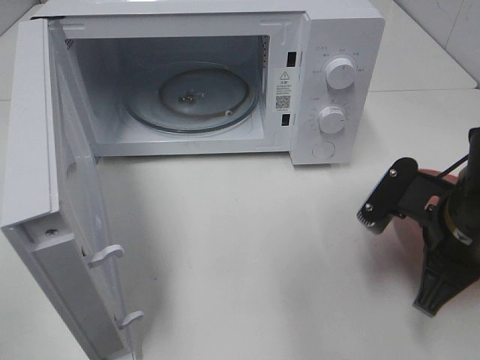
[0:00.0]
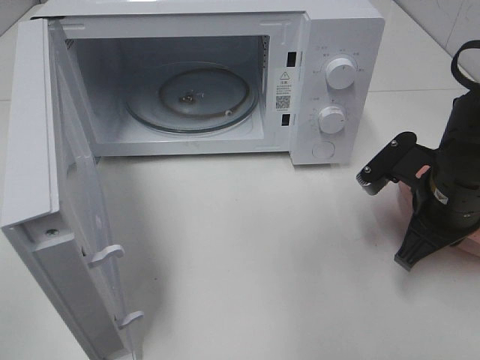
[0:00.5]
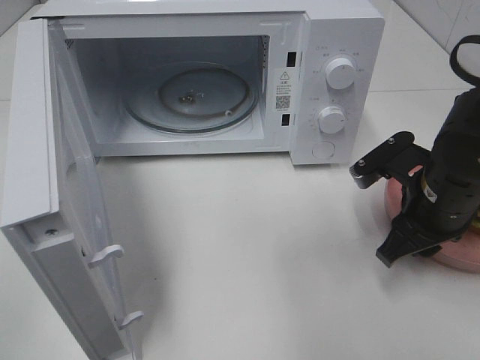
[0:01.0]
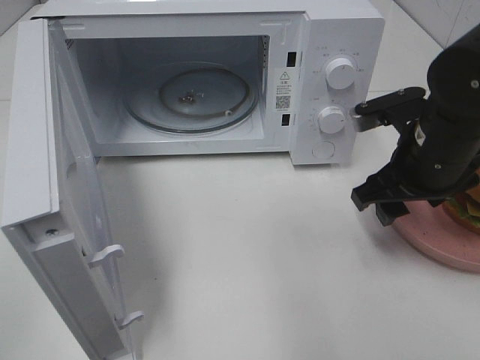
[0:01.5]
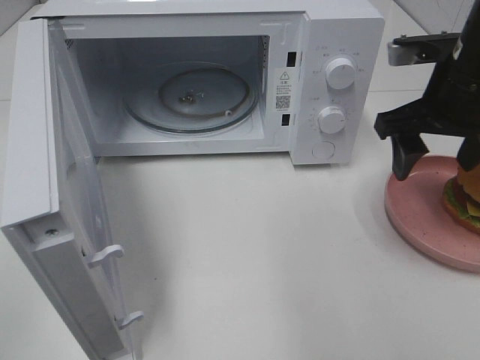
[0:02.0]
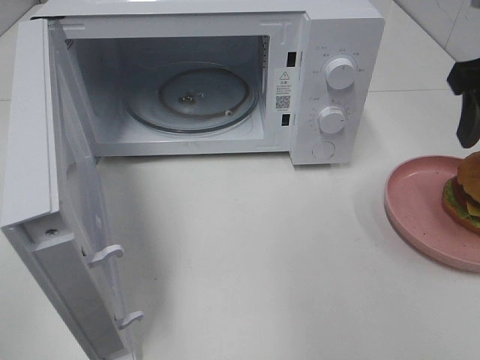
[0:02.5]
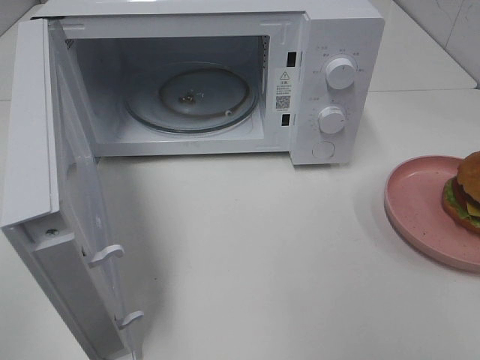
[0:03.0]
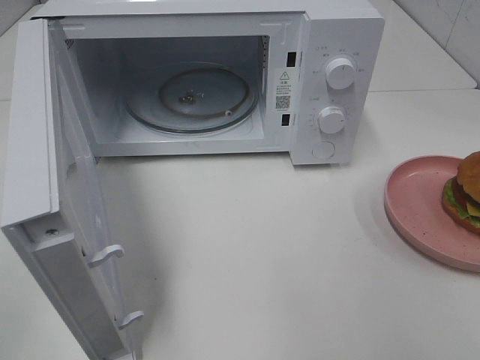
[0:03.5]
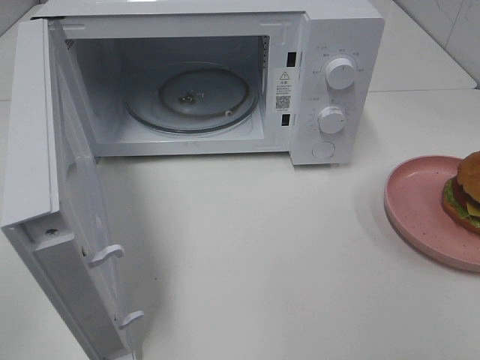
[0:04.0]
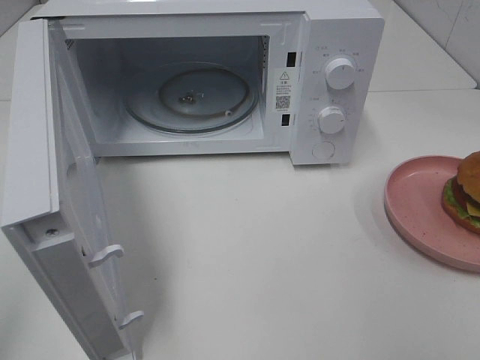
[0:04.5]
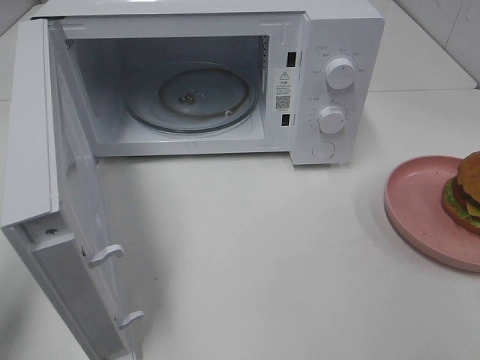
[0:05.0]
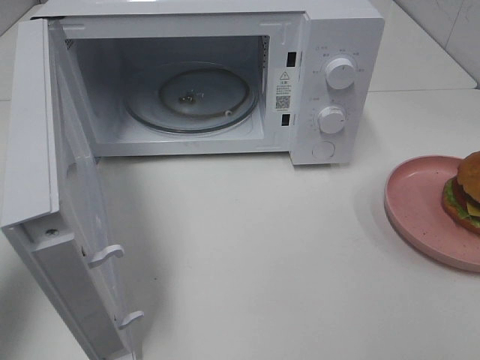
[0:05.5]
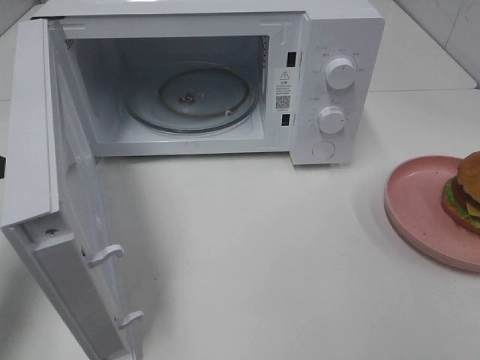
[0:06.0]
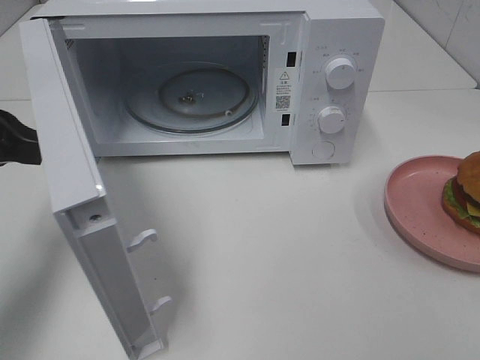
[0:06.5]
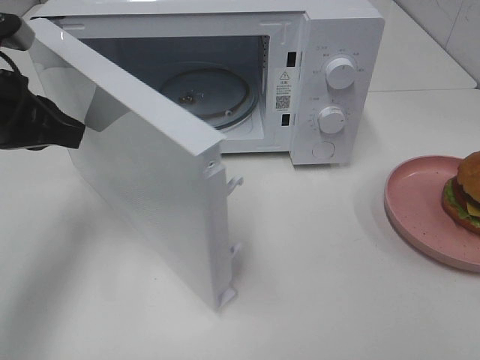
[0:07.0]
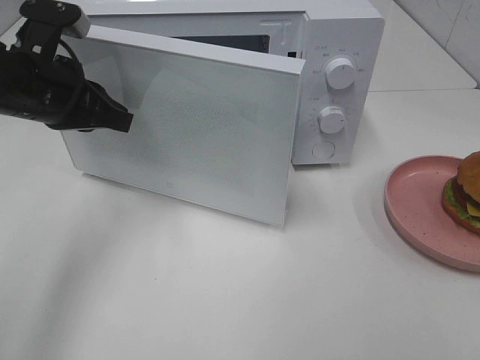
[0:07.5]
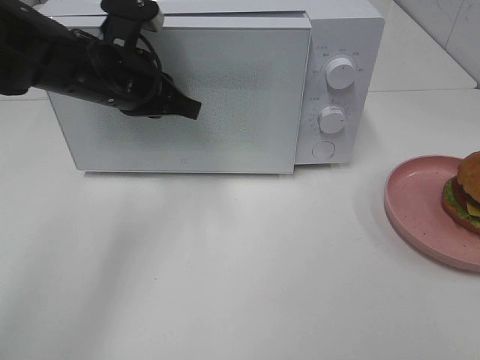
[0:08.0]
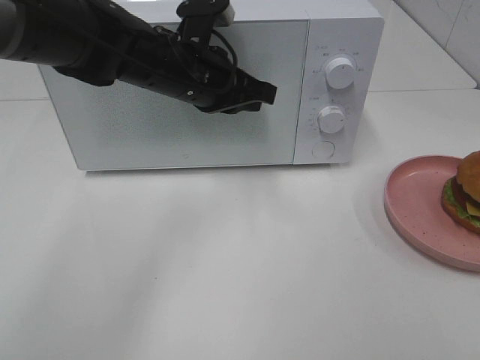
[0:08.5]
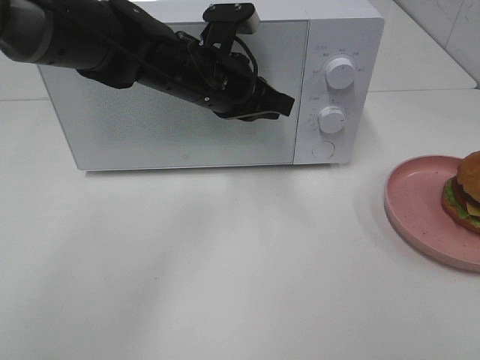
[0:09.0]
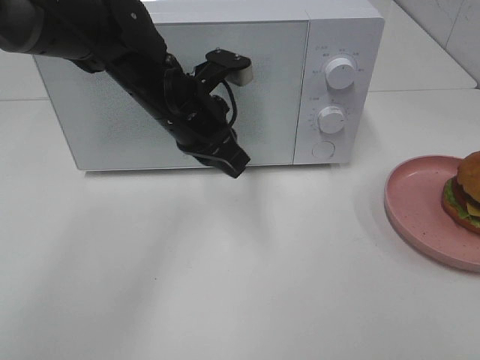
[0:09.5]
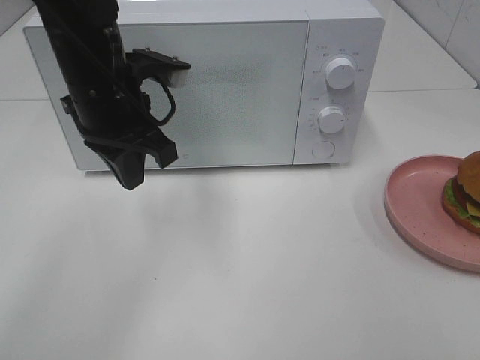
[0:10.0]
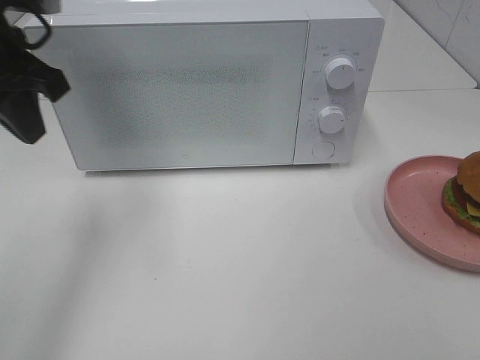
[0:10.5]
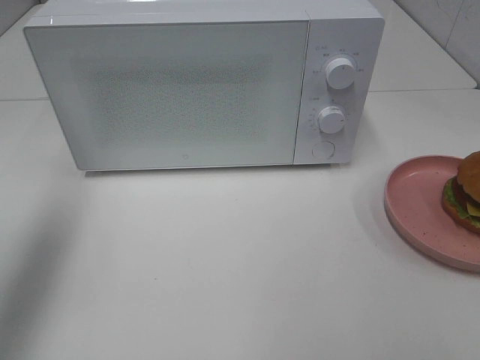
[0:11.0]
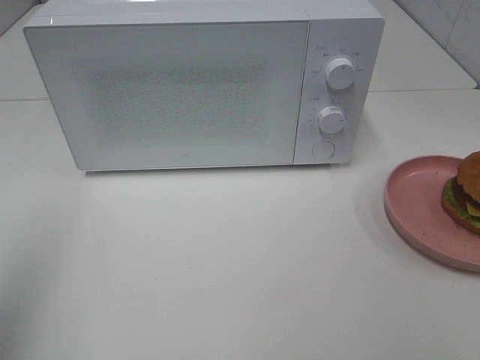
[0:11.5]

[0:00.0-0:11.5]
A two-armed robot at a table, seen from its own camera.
Task of the whole recording: Heat the burger.
Step, 0:01.5 to 0:09.0: Left hand: close the microwave door.
0:00.0 to 0:02.0: The right gripper is displaced forward and upward by about 15 cm, and opens its fingers.
0:02.0 to 0:04.0: The right gripper goes approximately 30 cm backward.
0:04.0 to 0:06.0: The left gripper goes roughly 20 cm forward.
0:06.0 to 0:07.5: The left gripper shifts about 15 cm to the right and forward.
0:07.5 to 0:09.5: The left gripper heads to the right, covering approximately 15 cm.
0:09.5 to 0:11.5: The left gripper travels to the left, backward and upward by roughly 35 cm.

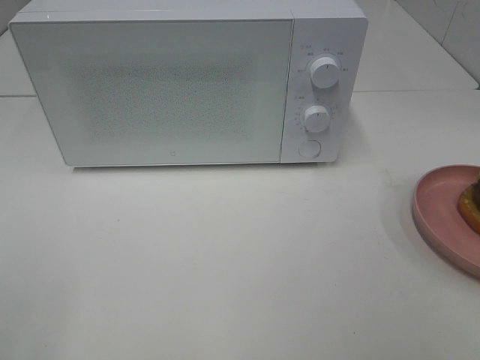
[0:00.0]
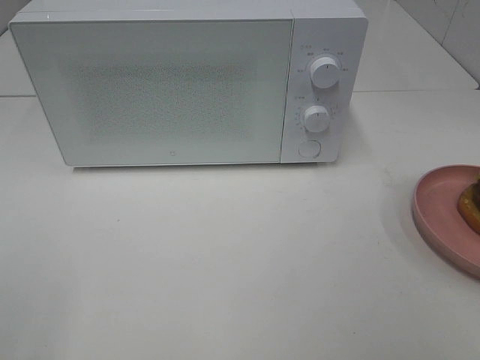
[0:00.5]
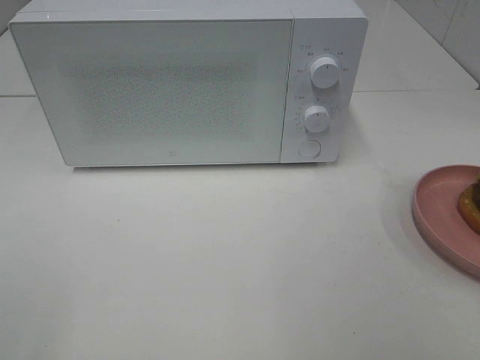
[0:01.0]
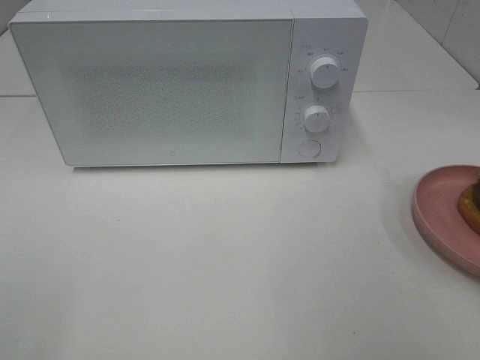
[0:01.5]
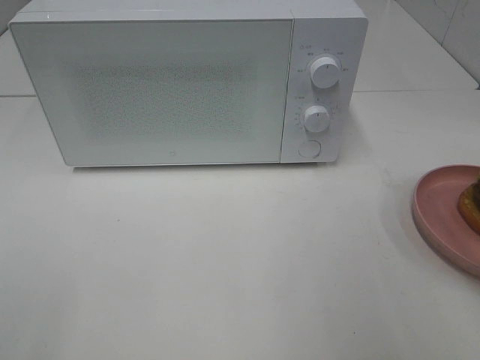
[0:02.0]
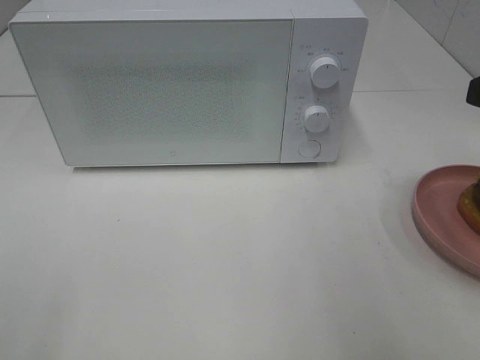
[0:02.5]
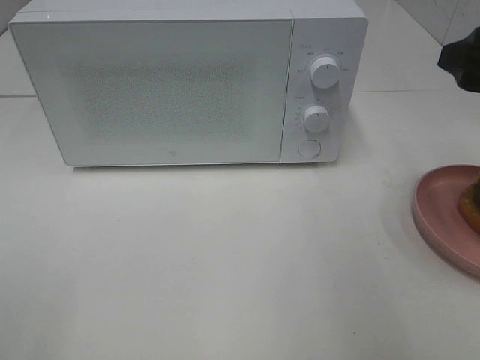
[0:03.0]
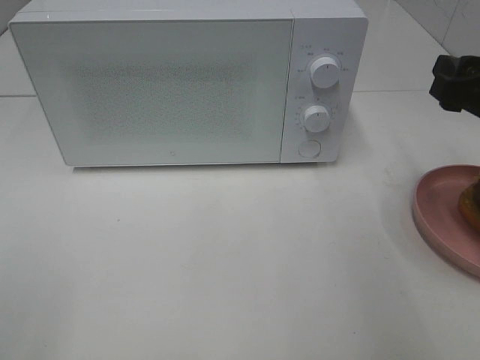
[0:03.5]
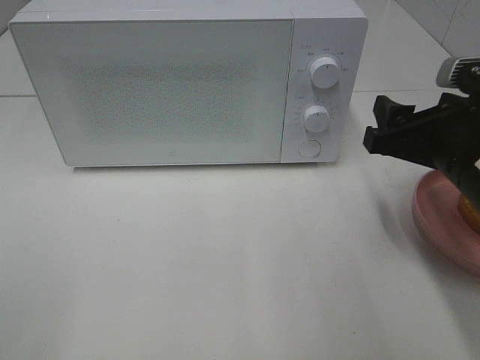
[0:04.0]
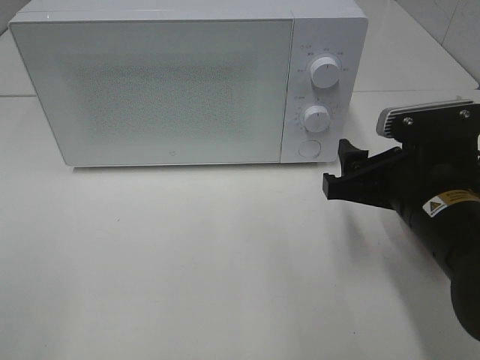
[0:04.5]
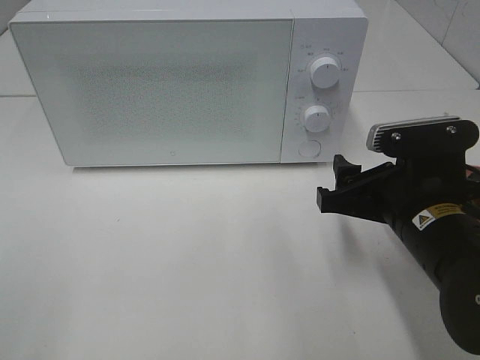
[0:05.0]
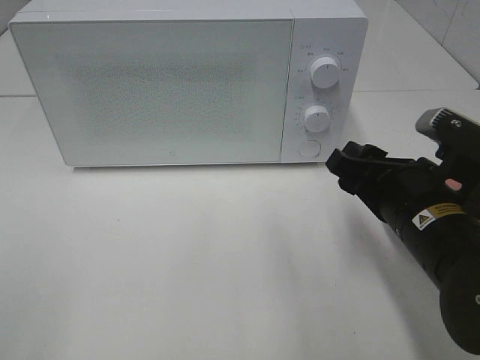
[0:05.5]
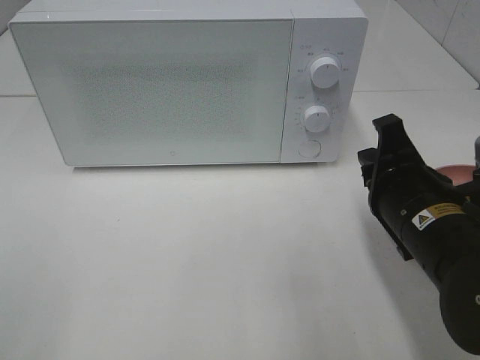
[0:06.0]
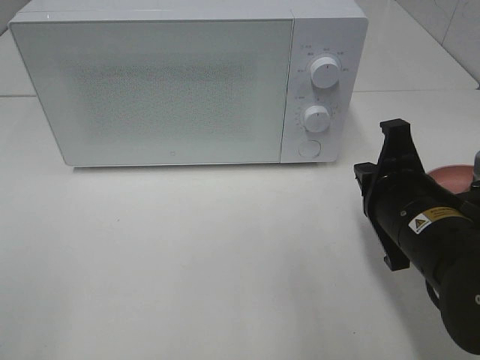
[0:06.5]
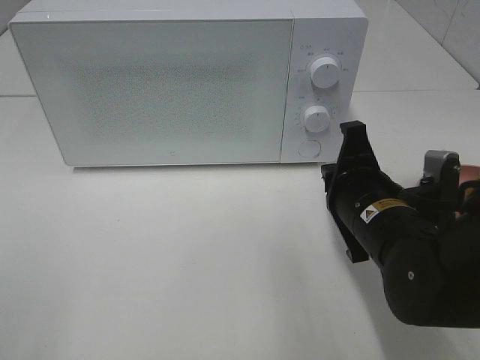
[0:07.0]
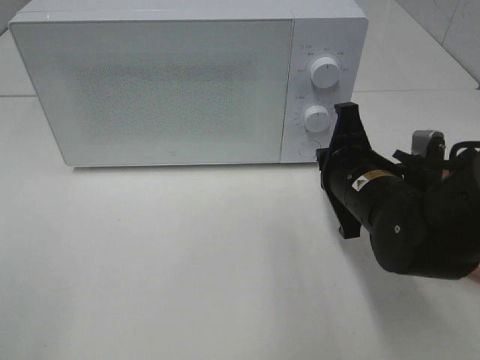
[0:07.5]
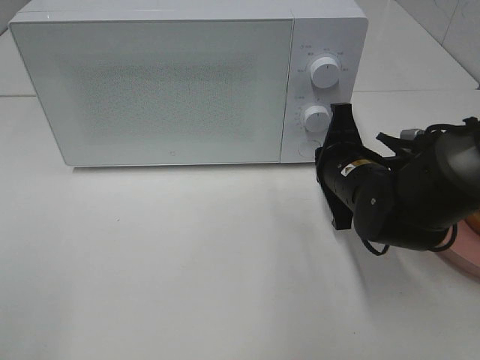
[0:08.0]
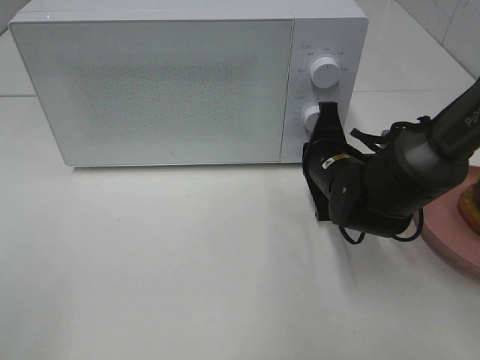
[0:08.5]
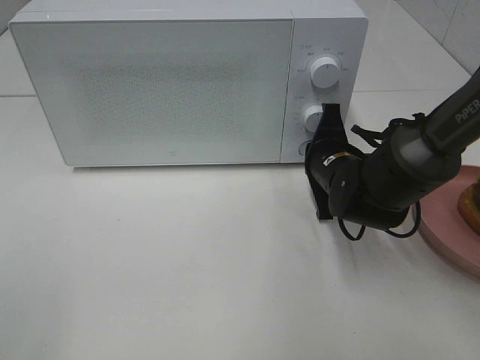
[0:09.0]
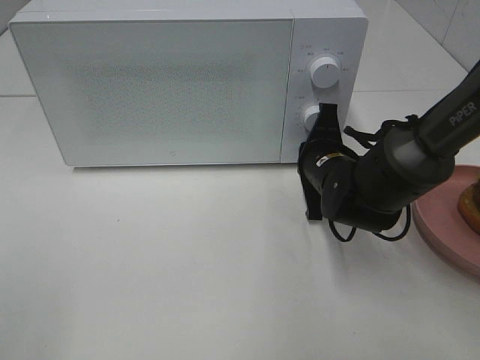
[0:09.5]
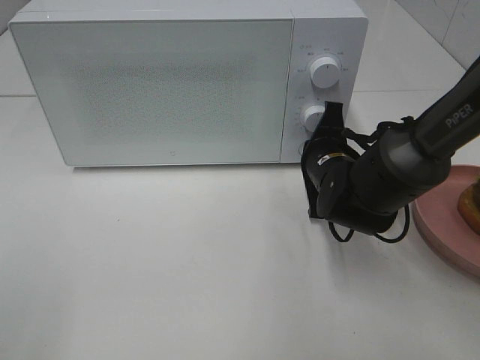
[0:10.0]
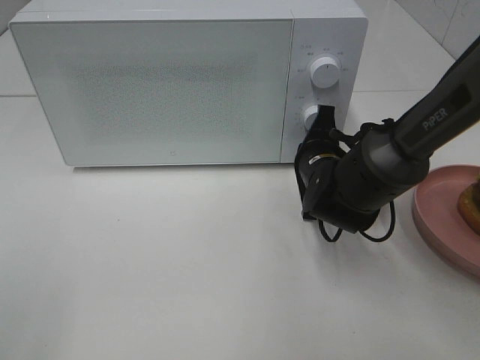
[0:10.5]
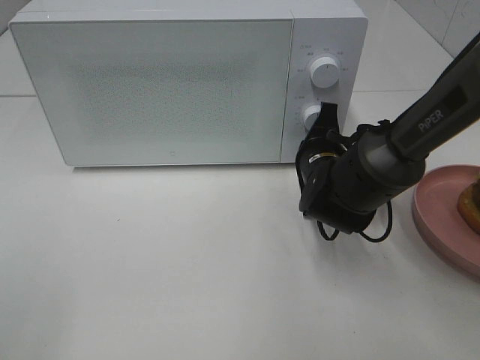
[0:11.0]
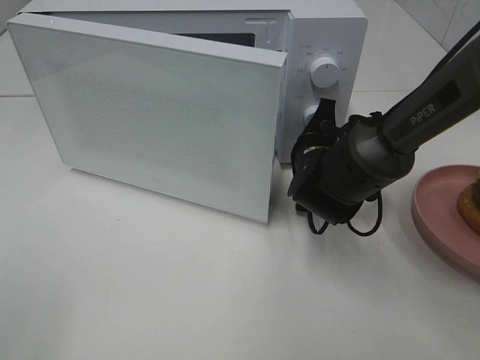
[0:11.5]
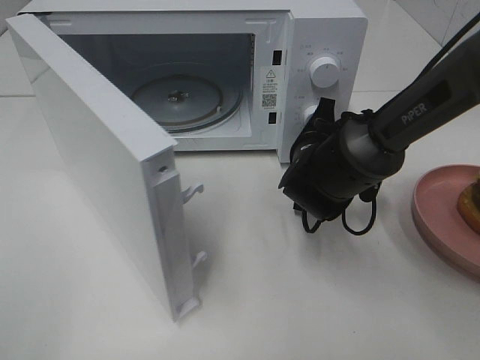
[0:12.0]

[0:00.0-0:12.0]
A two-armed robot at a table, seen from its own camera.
Task of the whole recording: Heat the burger.
0:02.0 to 0:04.0: The right gripper heads downward, forward and to the left, covering some 15 cm.
0:04.0 to 0:06.0: The right gripper changes place by approximately 5 cm, and closes its fingers.
0:06.0 to 0:08.0: The right gripper moves forward, about 10 cm.
0:08.0 to 0:10.0: The grippers stay close to where they were, moving slightly.

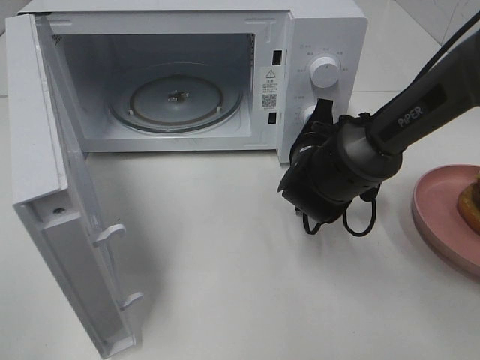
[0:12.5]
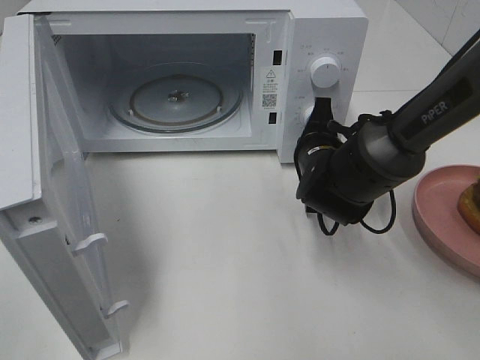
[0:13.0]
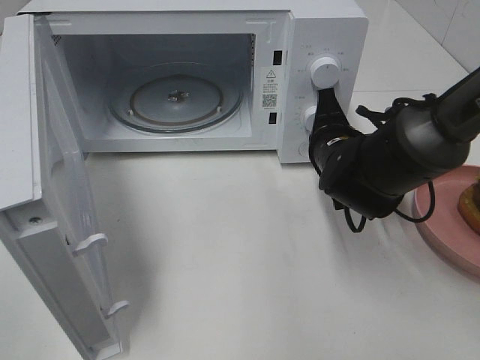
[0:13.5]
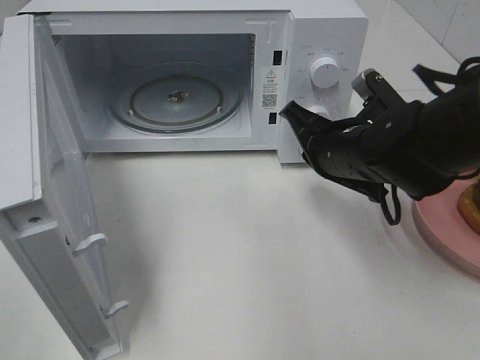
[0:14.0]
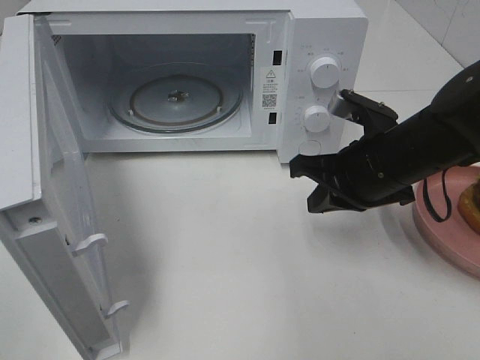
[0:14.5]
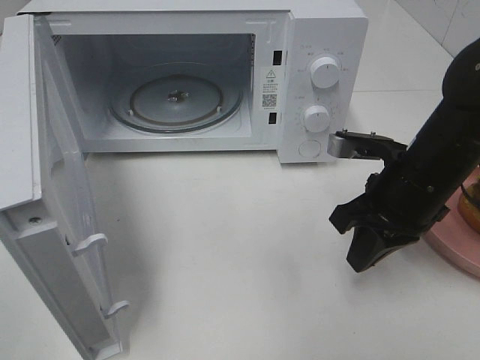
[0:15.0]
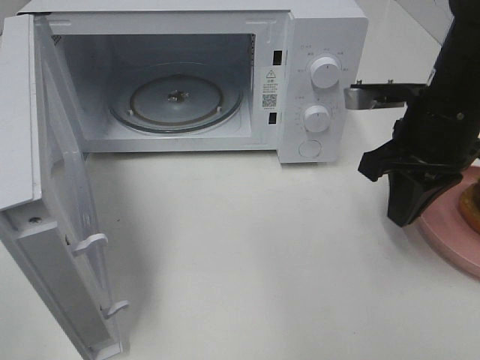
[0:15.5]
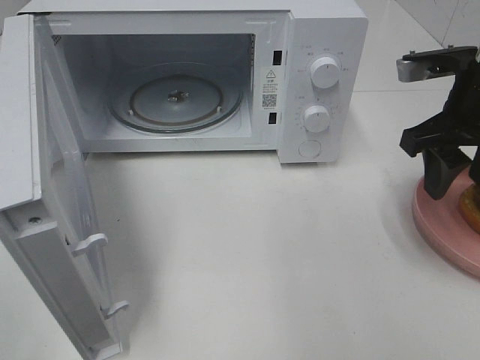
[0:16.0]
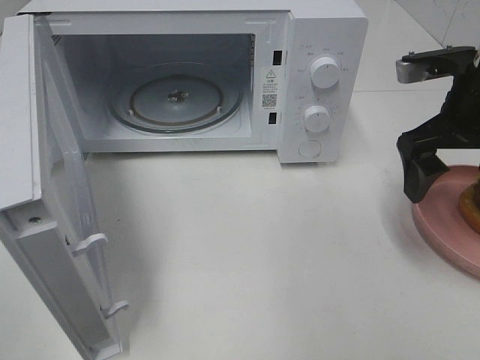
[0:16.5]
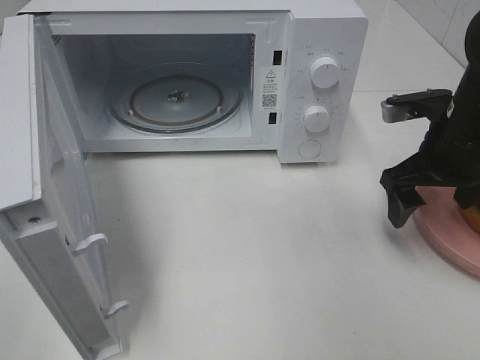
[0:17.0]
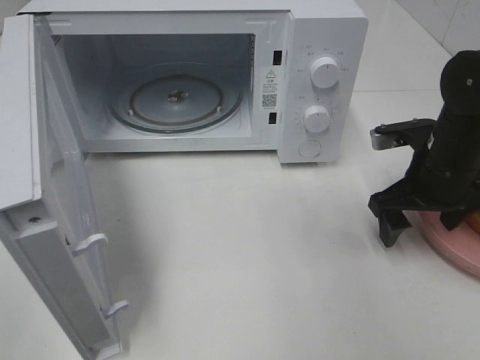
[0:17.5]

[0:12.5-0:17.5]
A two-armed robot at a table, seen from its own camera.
Task of the whole recording: Heat the burger.
0:12.5 to 0:15.0: The right gripper moves backward, to the right and upward, roughly 15 cm.
0:15.0 to 0:17.5: The right gripper goes approximately 5 cm to the right, travels upward and back again, some 10 cm each way, and opens its fingers.
